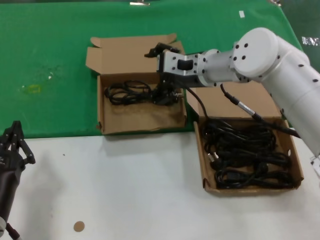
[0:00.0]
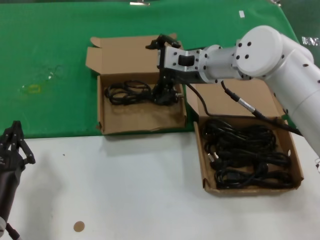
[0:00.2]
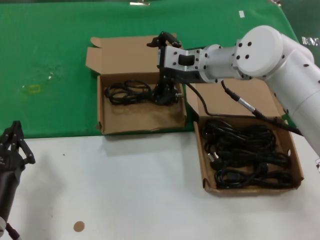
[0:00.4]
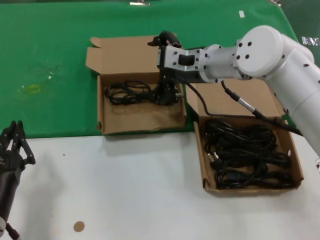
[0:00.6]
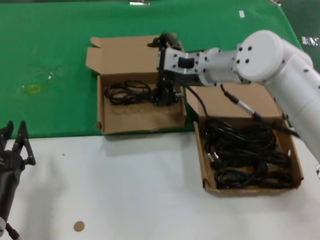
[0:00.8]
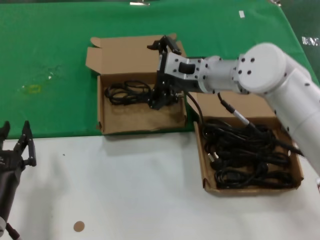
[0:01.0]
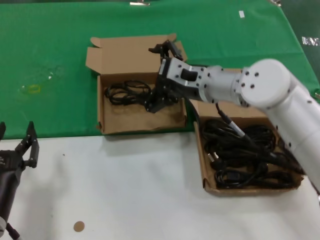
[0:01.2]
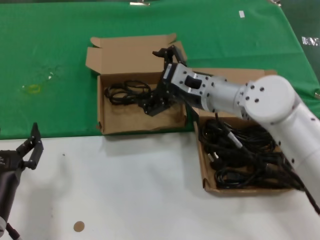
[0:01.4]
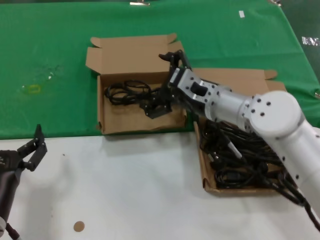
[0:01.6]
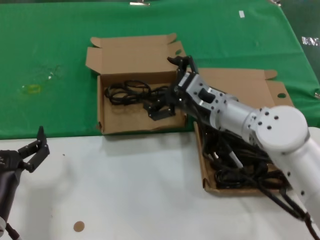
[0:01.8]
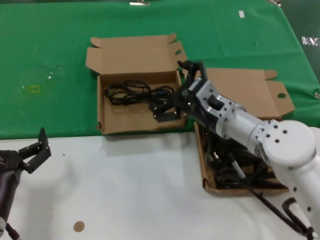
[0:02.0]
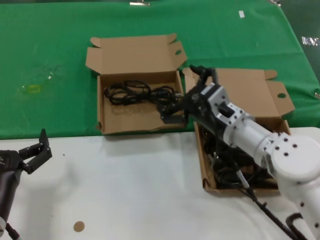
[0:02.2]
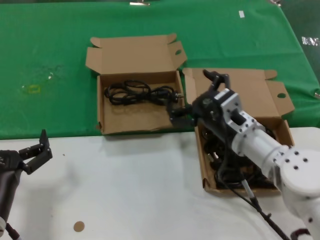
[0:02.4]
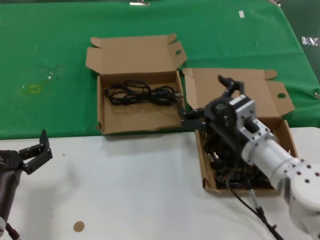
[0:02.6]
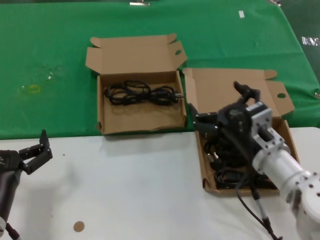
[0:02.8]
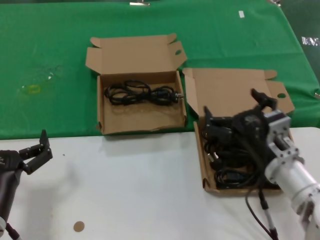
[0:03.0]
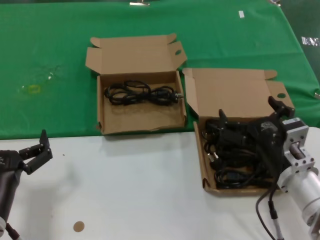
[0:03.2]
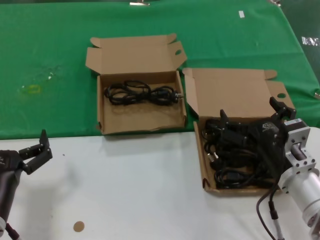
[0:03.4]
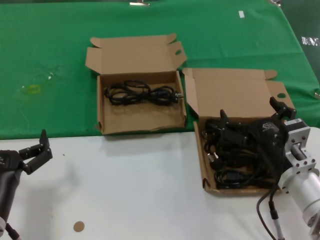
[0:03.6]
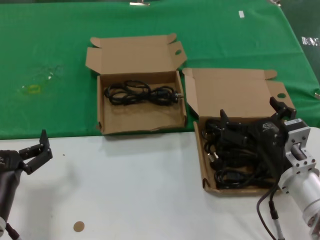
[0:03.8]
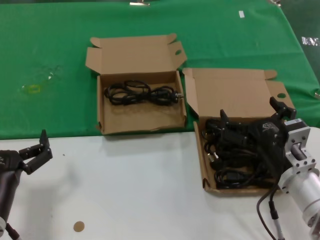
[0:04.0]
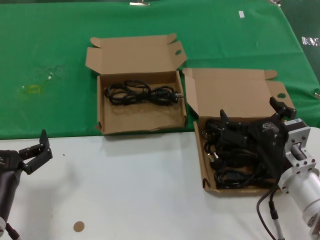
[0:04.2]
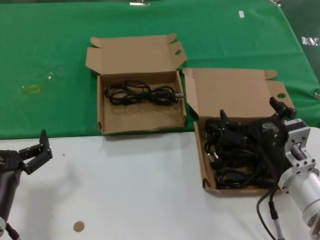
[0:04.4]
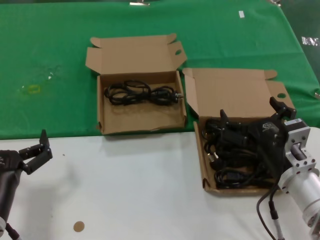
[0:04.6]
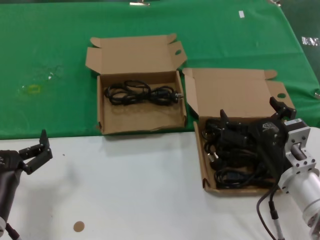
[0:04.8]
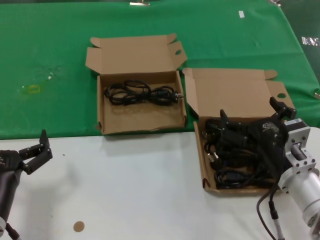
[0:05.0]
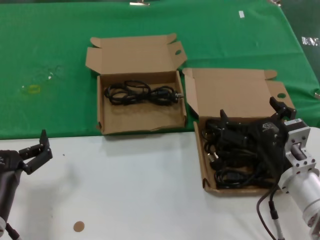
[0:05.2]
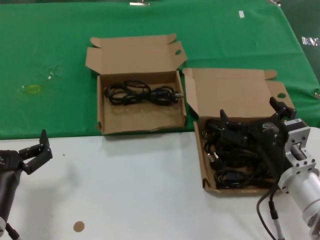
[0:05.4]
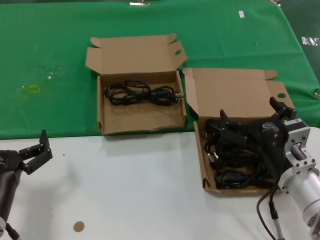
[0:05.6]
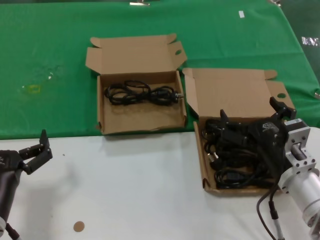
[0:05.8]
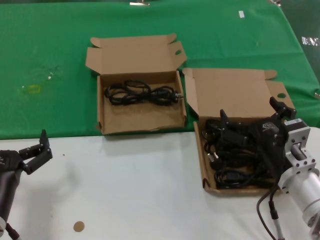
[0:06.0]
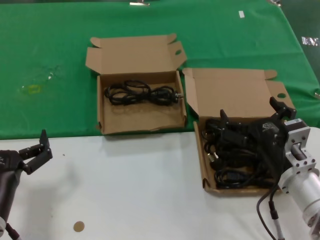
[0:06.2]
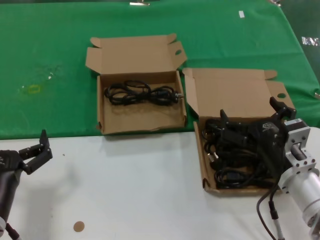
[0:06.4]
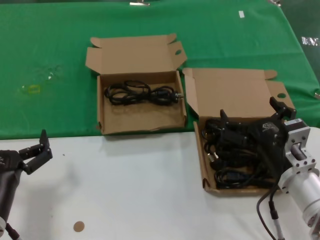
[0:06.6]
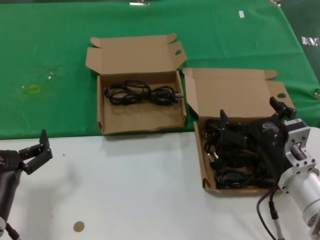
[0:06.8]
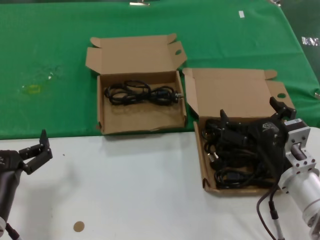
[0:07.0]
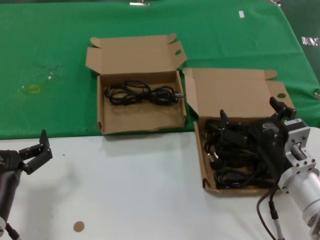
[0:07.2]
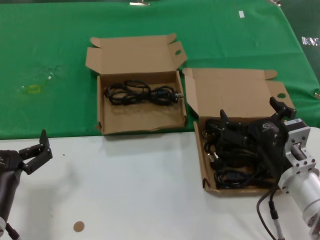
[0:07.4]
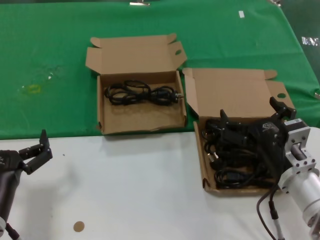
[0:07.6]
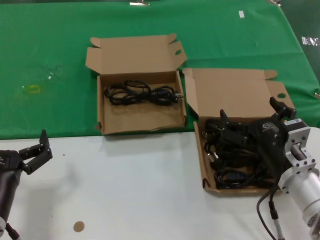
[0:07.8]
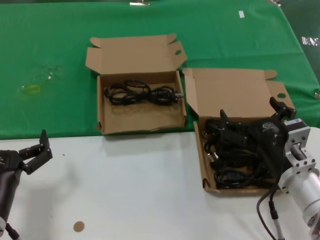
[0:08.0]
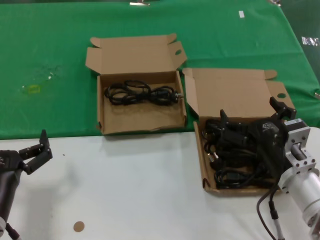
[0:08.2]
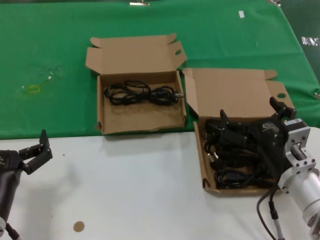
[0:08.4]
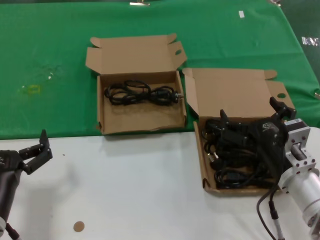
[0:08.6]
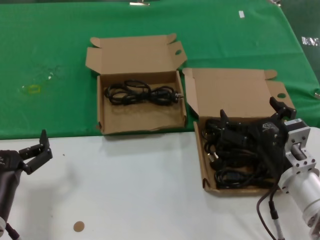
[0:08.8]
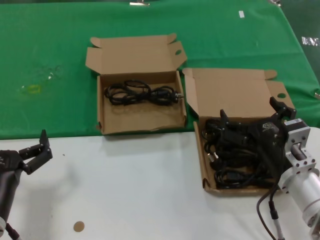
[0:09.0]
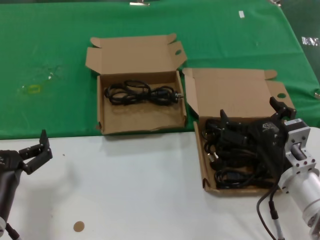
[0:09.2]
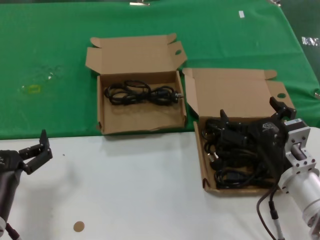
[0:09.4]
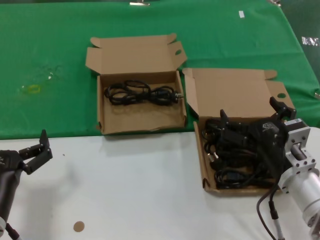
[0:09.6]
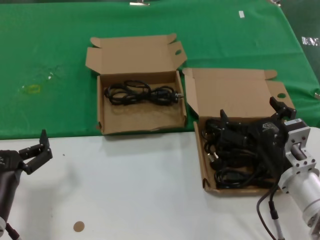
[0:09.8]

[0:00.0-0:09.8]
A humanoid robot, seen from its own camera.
Task of the whole recording: take the parts from the box containing them and put them into an empty box.
0:00.0 to 0:01.4: The right hand shifts by approximately 5 cm.
0:01.4 to 0:02.8: The right hand moves backward, downward and to the right, some 20 cm.
0:02.8 to 0:04.2: The right hand moves backward, about 5 cm.
0:04.2 to 0:09.8: The two hands keep their place.

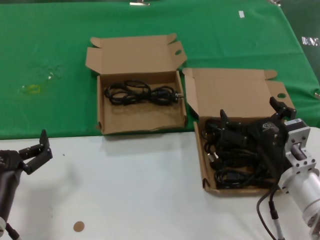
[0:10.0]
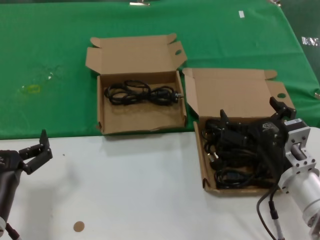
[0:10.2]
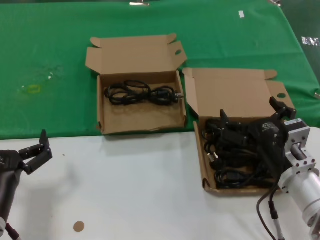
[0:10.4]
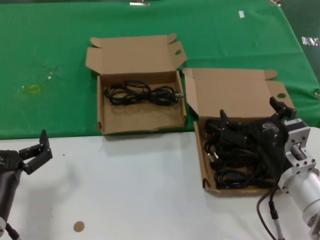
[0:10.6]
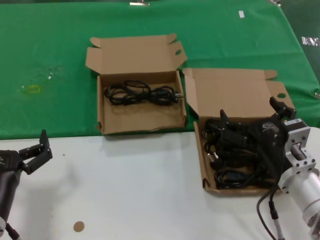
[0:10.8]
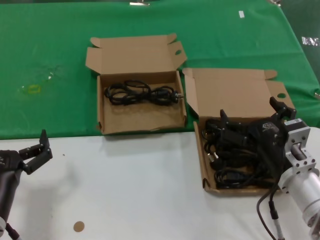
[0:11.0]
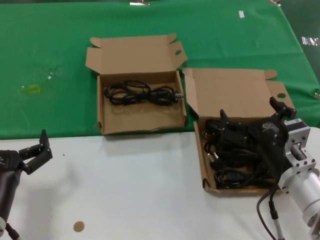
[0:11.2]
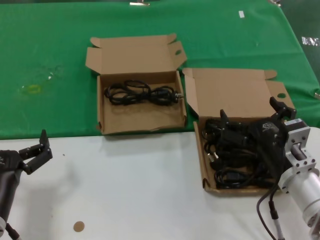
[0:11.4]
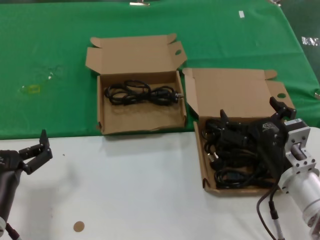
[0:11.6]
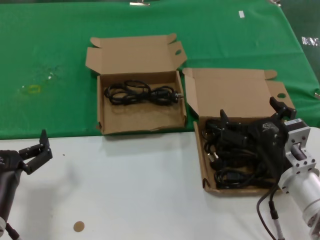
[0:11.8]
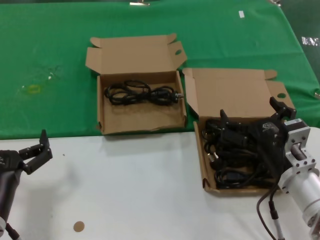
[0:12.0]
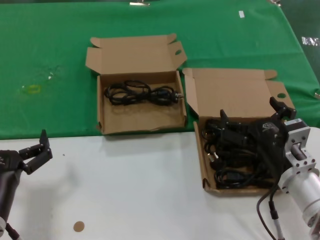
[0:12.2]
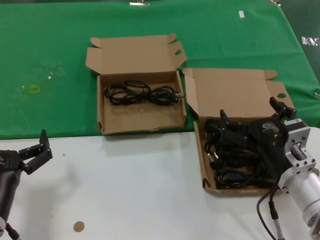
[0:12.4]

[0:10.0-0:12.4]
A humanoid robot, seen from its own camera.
Task of the whole recording: take the parts from the box containing them and put them into an empty box.
0:10.0 to 0:12.4: Neither hand changes place.
